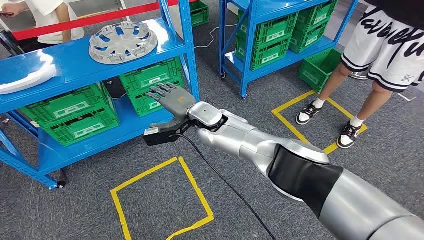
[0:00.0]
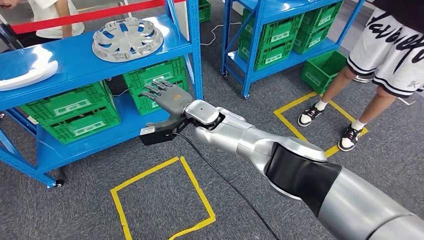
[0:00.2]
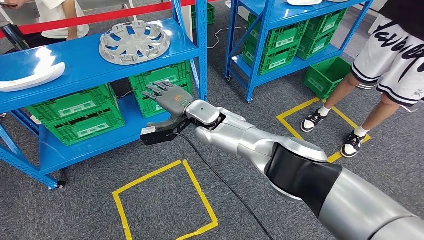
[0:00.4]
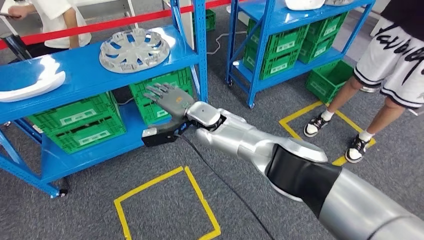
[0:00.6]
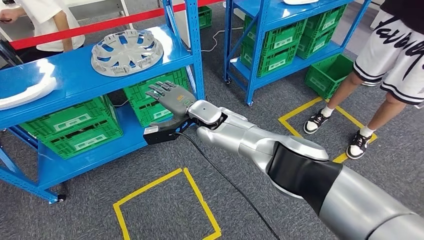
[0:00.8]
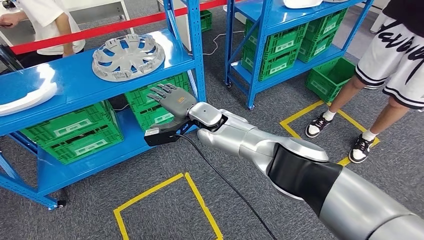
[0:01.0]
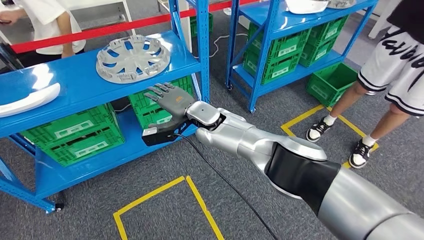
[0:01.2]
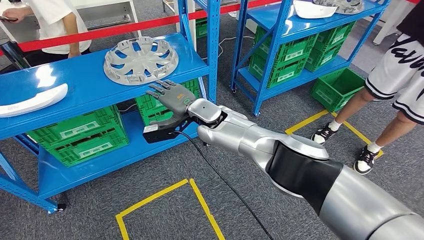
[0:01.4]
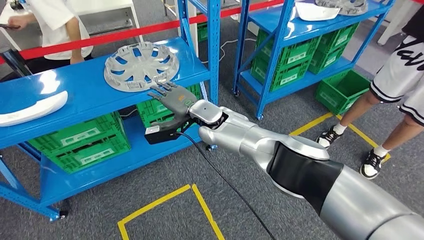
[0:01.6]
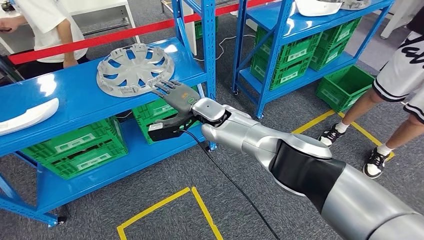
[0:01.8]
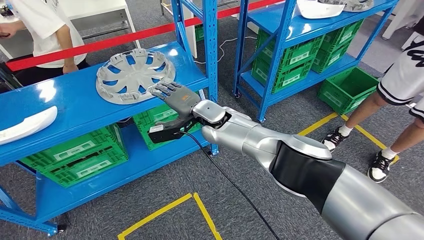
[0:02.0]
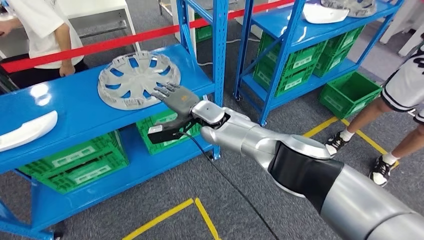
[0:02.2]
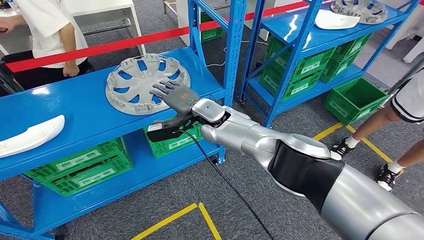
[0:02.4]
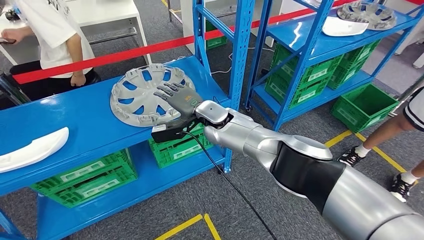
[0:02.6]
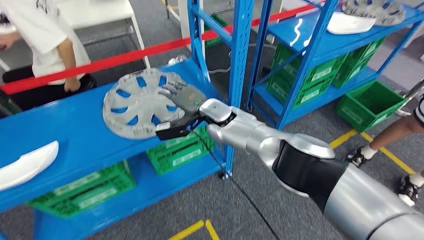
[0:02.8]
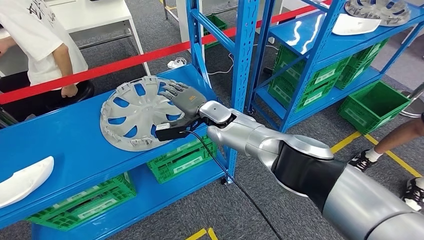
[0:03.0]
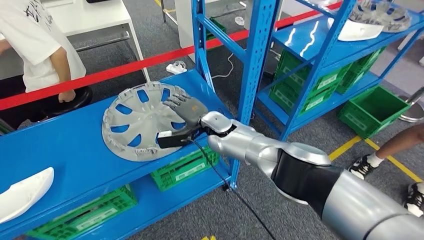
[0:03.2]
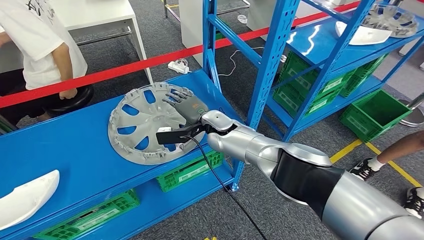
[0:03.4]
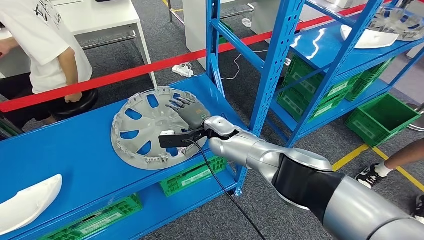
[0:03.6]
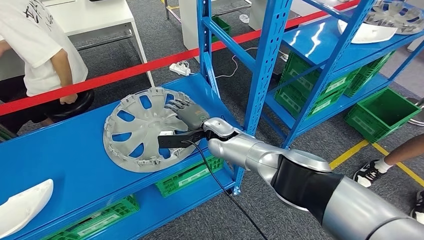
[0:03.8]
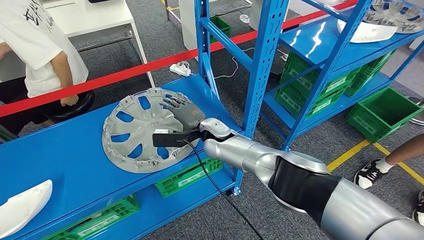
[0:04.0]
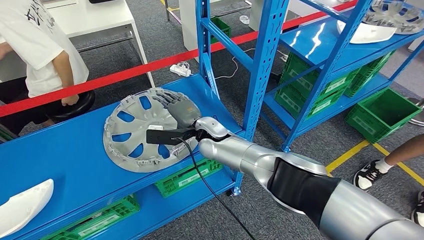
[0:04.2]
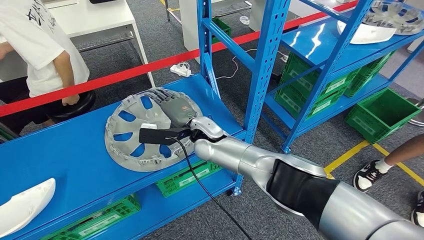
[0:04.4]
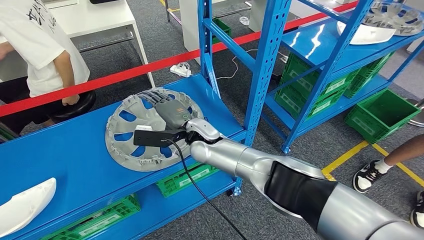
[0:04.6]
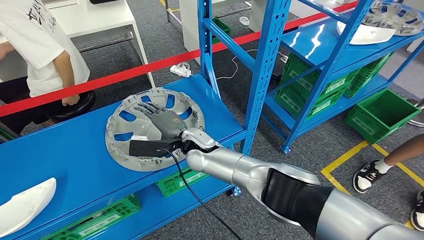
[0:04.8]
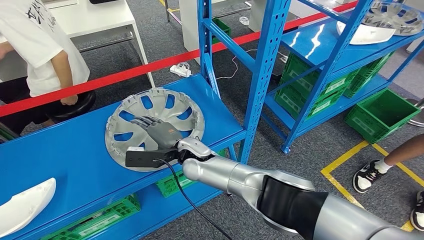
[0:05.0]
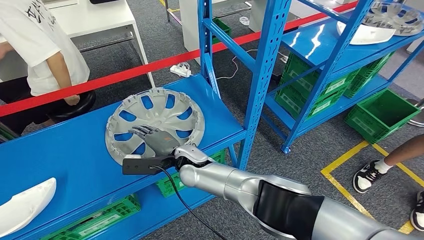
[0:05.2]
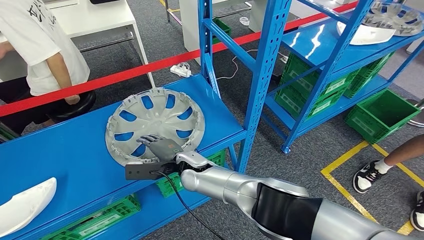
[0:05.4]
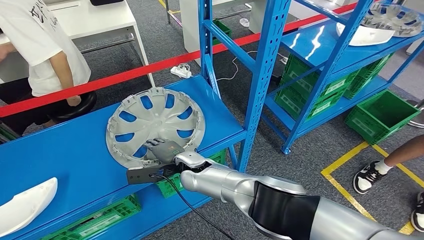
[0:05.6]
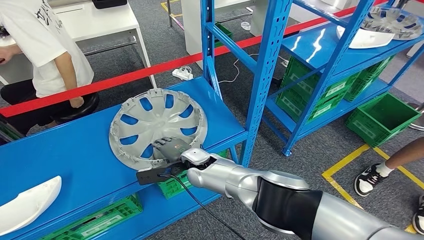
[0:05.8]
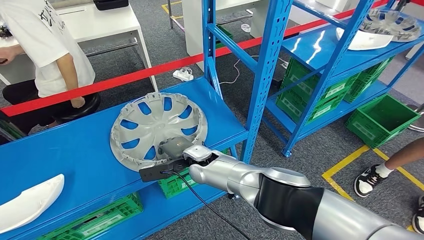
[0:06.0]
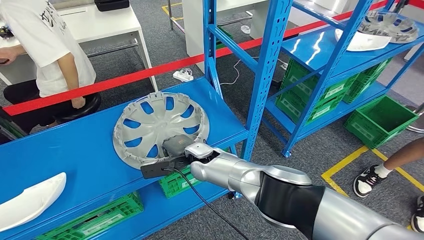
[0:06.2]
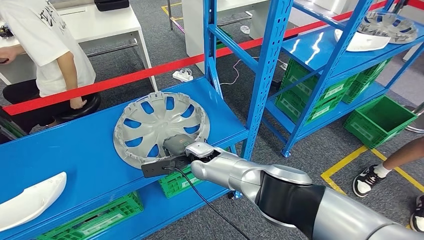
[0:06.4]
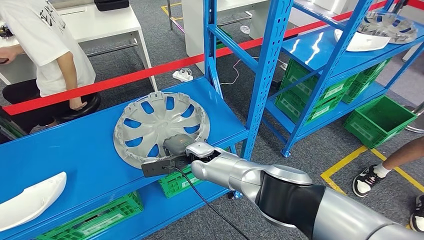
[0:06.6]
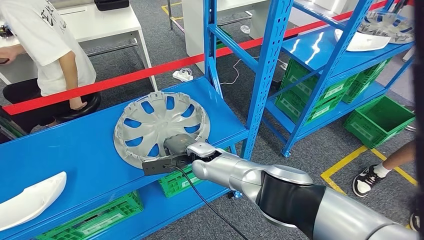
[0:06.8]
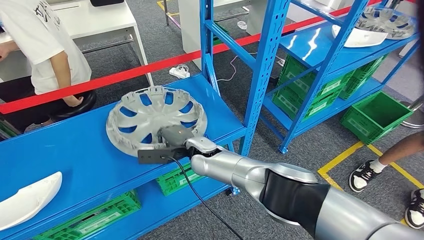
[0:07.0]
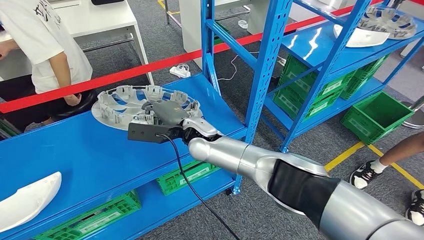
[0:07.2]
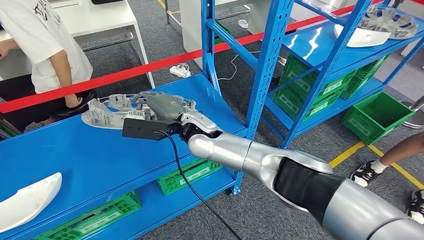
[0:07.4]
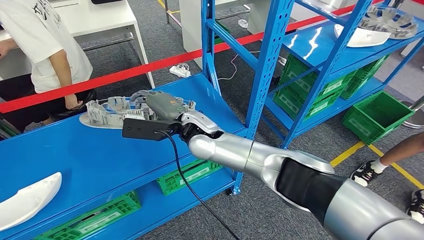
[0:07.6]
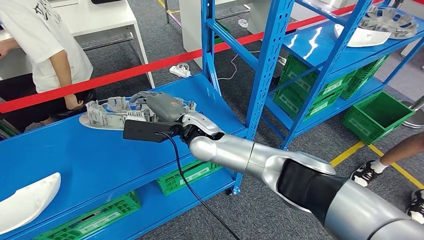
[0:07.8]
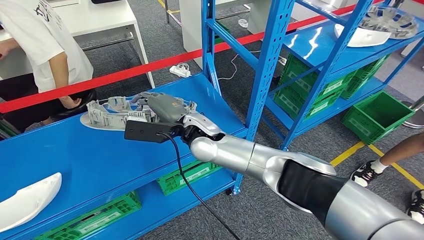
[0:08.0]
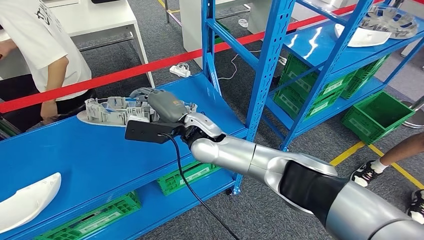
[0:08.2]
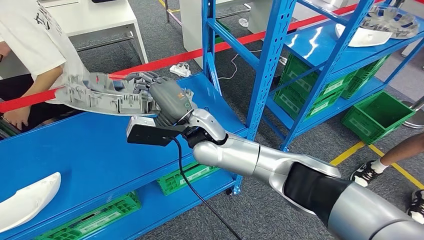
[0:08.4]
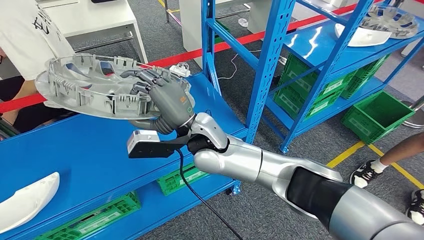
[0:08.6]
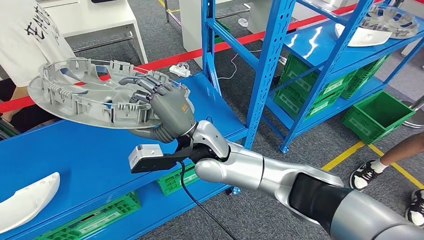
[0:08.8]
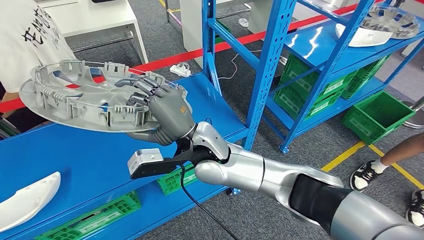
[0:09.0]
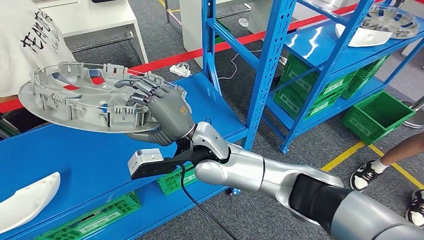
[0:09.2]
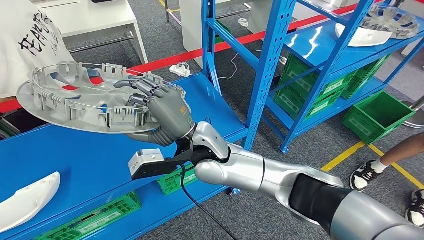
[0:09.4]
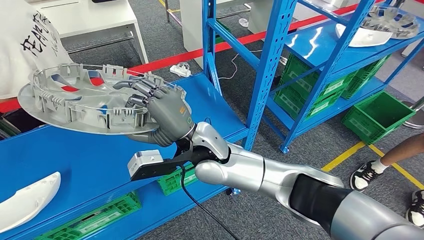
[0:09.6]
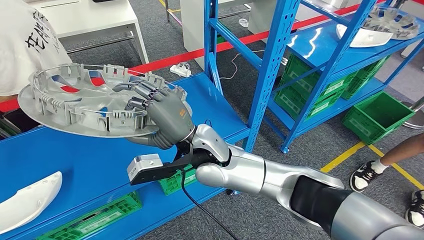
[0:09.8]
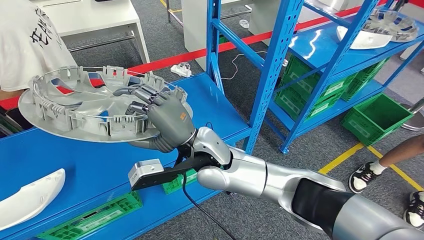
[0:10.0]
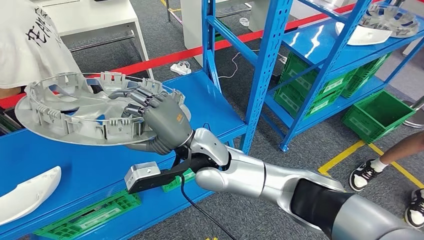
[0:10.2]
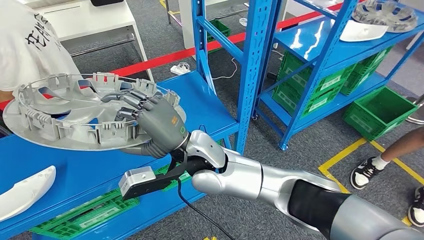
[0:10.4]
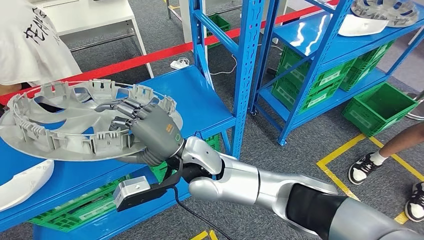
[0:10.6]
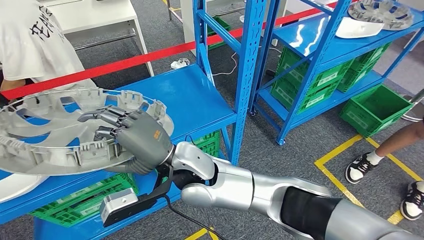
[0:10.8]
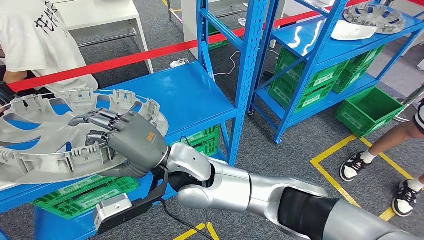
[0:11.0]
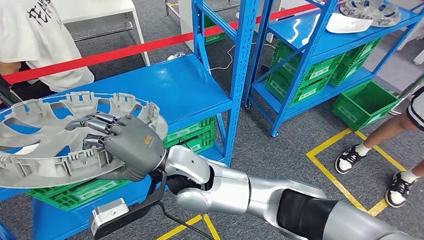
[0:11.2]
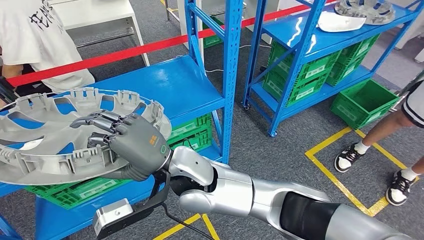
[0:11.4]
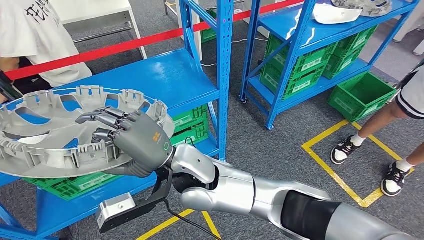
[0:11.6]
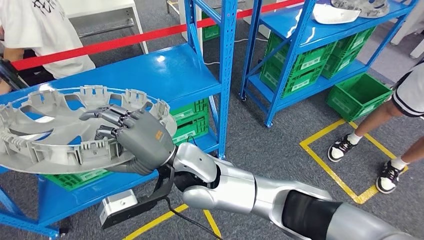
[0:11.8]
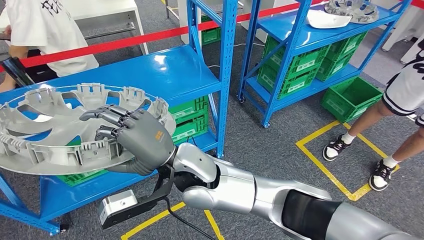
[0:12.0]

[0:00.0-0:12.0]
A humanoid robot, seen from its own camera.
Step, 0:00.0 to 0:08.8: Pick up the small parts from the shelf.

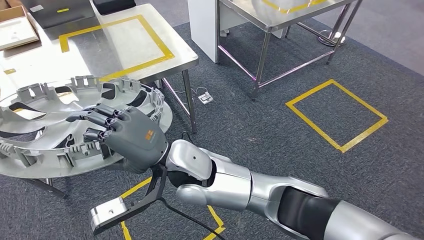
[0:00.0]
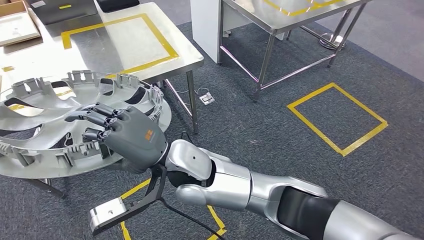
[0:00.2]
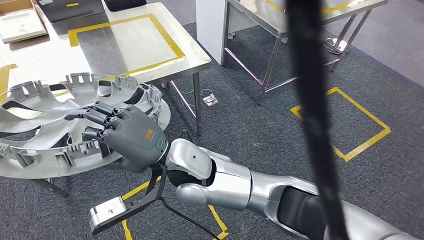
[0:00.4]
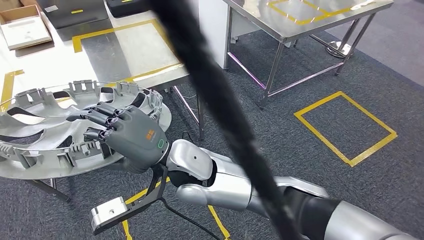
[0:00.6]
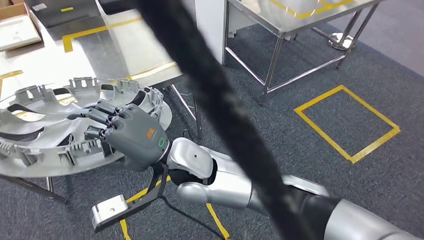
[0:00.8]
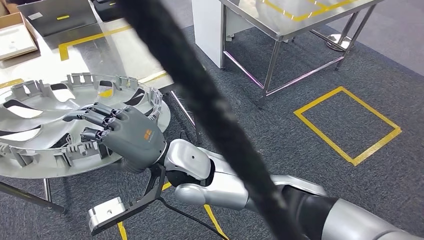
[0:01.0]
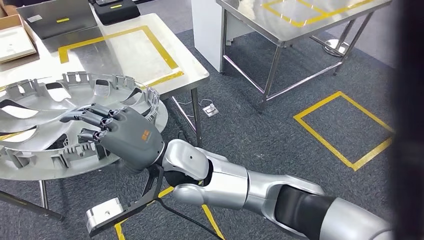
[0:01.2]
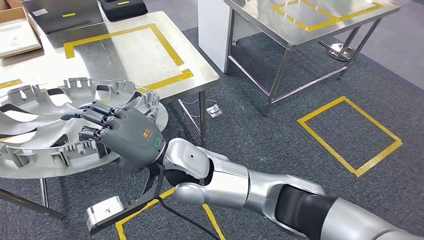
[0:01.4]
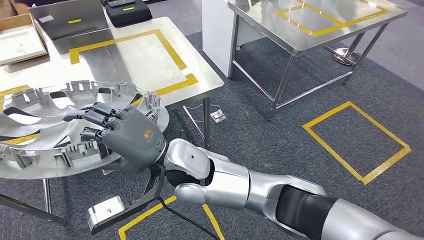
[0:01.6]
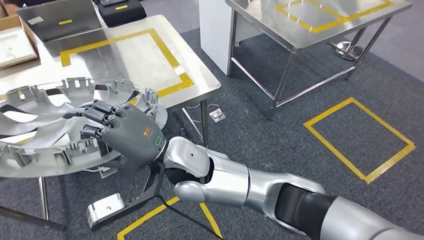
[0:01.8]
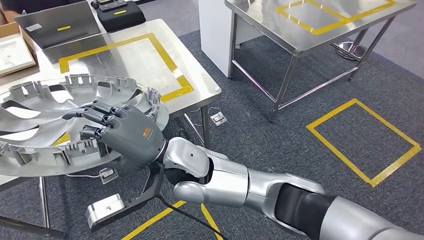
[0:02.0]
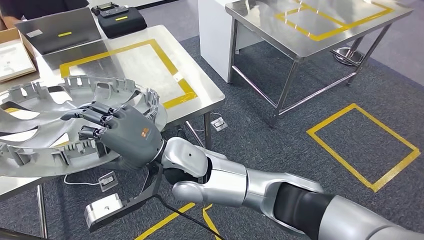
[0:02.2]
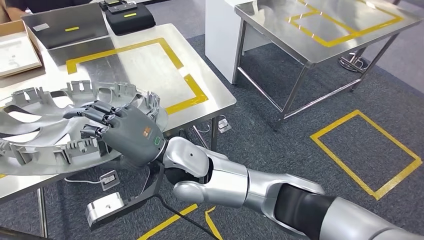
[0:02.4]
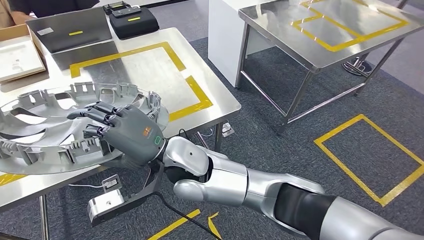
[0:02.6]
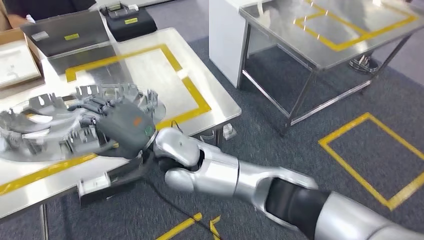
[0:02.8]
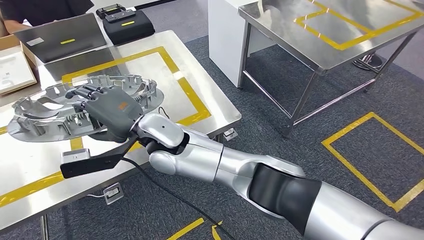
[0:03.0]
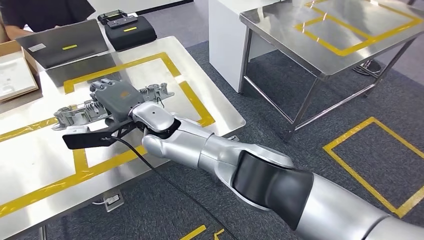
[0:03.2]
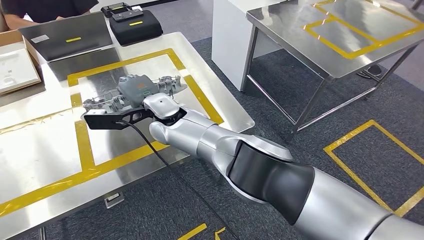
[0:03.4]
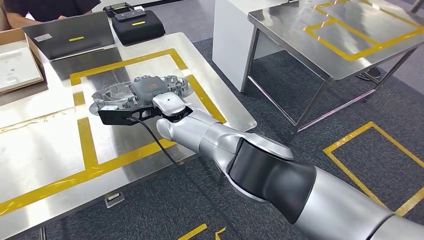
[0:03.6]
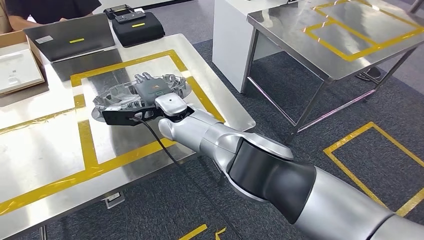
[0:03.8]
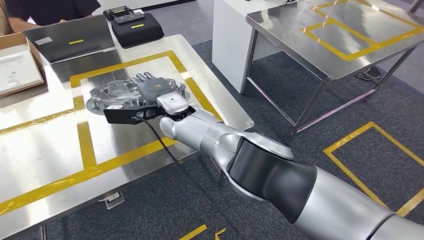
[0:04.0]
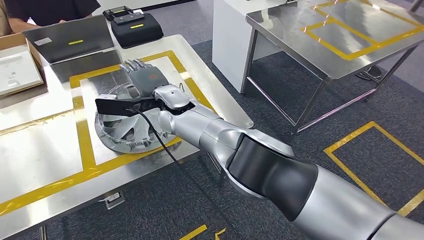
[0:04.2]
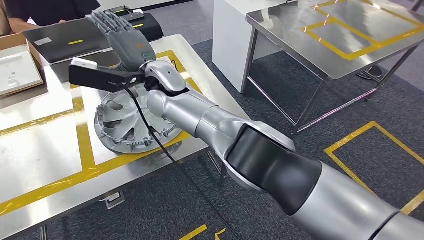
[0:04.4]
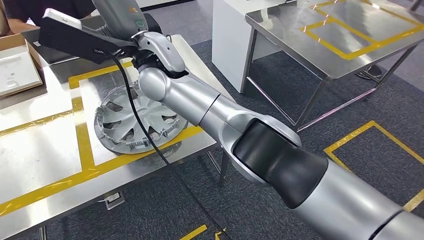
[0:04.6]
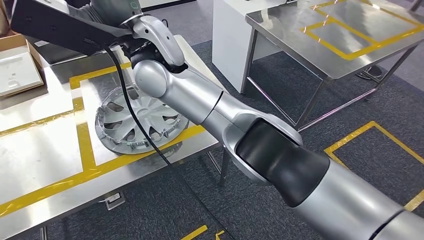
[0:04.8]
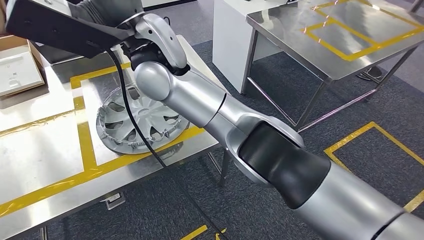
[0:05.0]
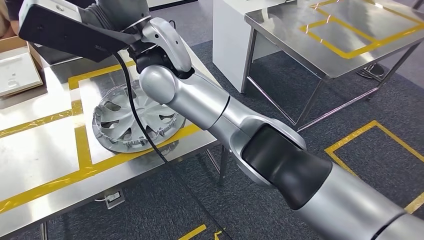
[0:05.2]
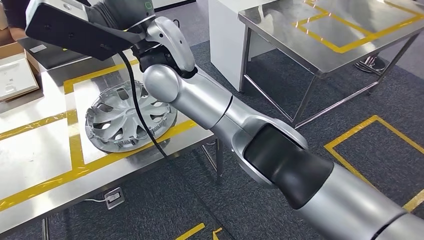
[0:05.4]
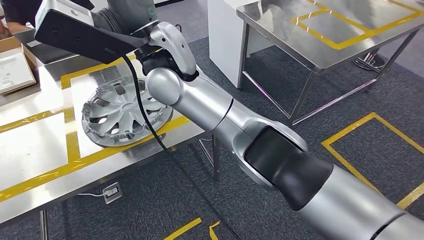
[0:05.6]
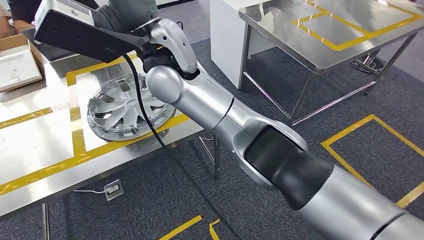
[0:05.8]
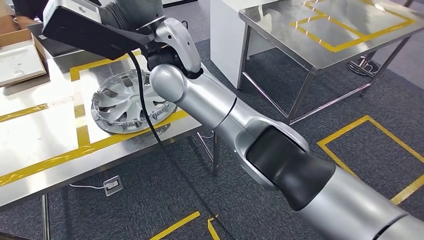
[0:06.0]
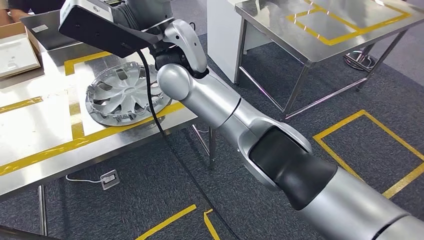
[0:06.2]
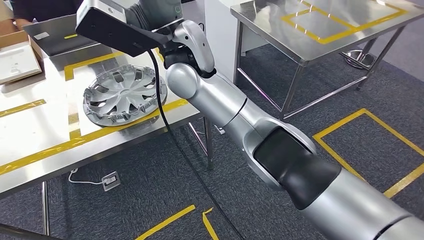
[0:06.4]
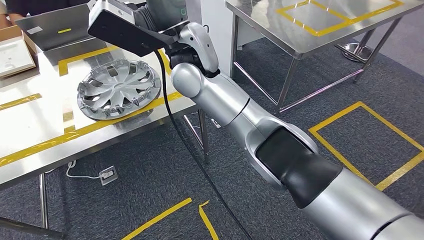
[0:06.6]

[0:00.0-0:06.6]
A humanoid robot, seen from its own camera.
Step, 0:00.0 to 0:02.0: Move the small parts to the workbench.
Step, 0:02.2 to 0:05.6: Insert the small parts into the corresponding slots on the workbench.
